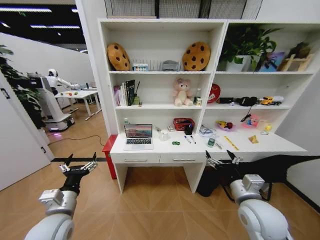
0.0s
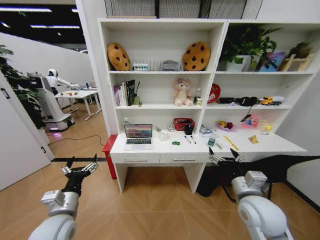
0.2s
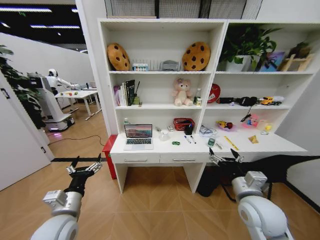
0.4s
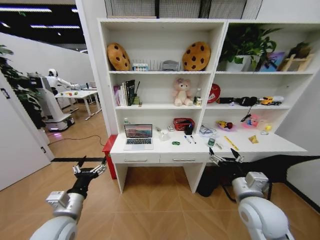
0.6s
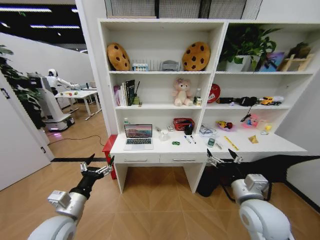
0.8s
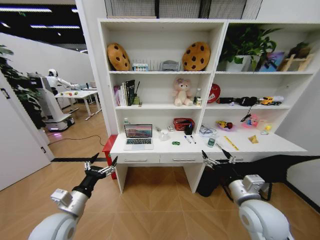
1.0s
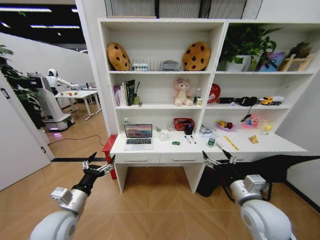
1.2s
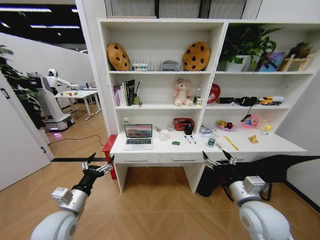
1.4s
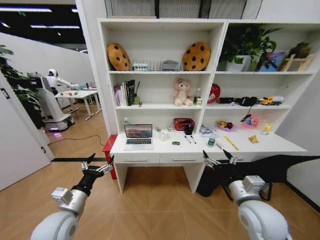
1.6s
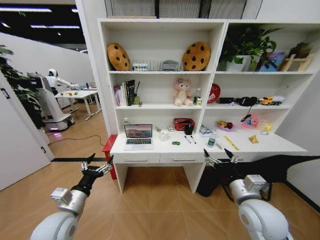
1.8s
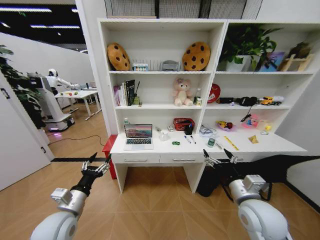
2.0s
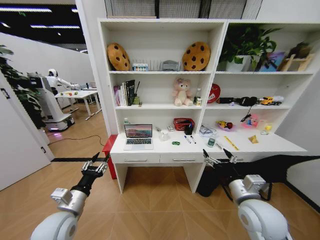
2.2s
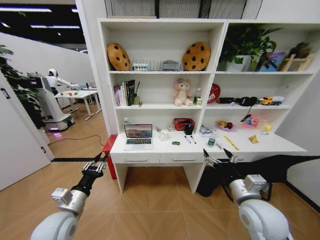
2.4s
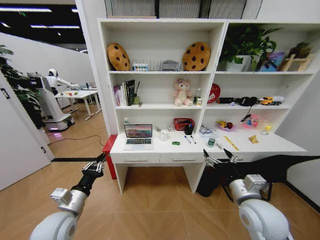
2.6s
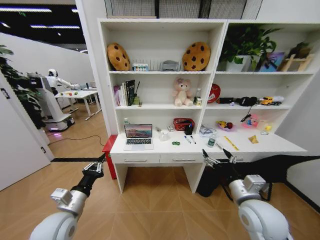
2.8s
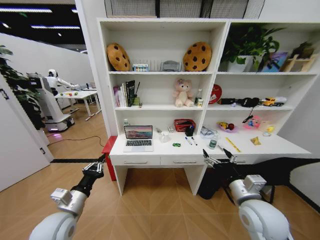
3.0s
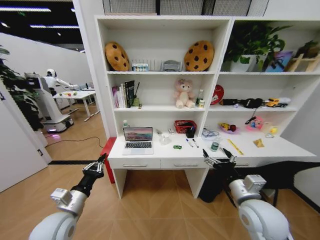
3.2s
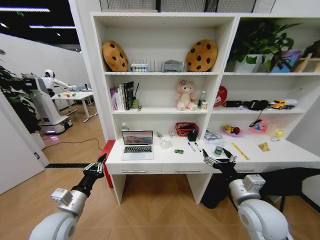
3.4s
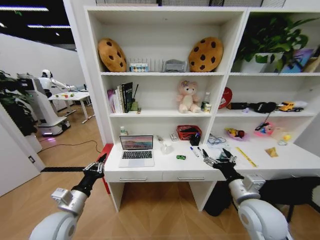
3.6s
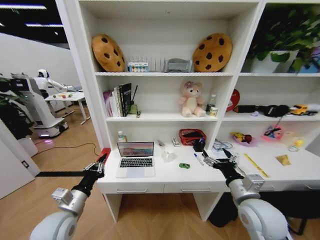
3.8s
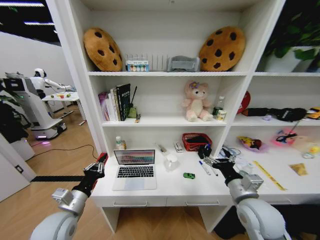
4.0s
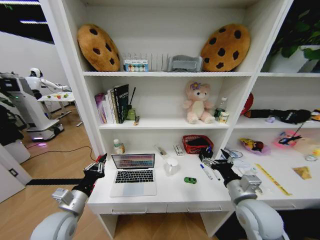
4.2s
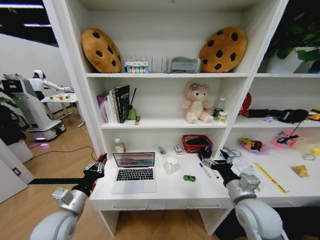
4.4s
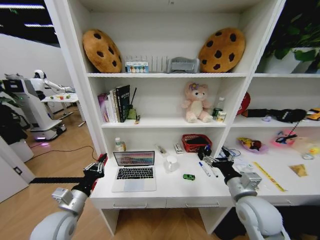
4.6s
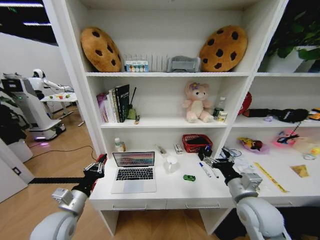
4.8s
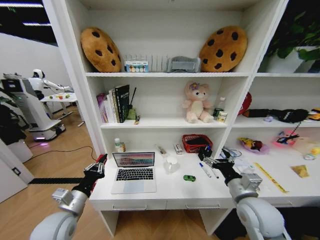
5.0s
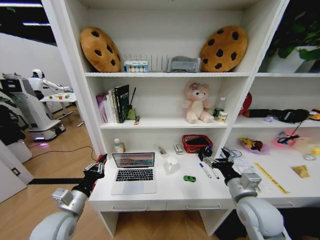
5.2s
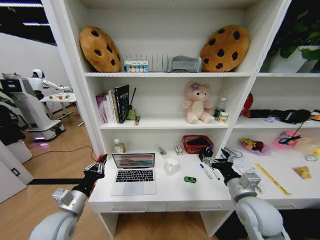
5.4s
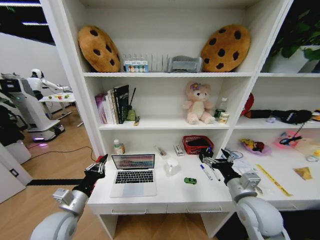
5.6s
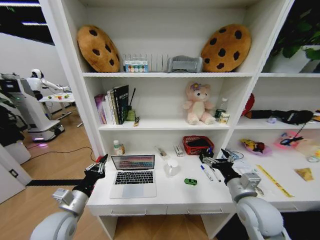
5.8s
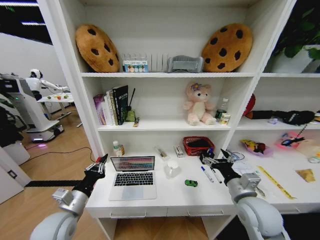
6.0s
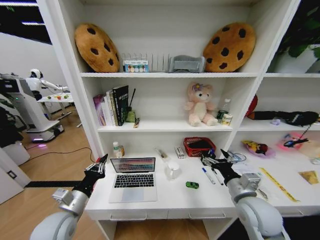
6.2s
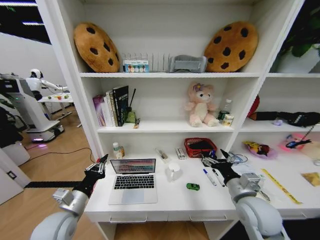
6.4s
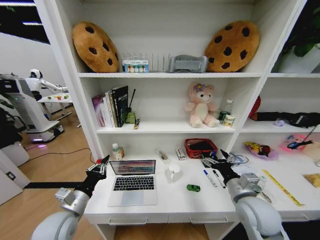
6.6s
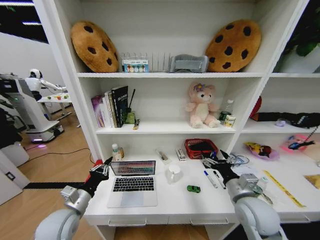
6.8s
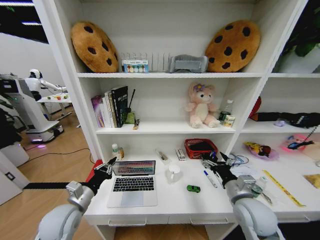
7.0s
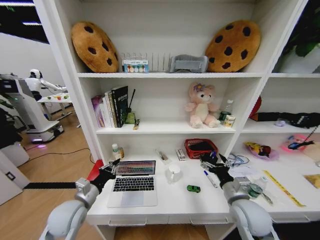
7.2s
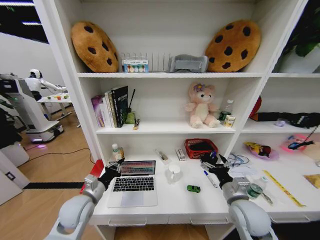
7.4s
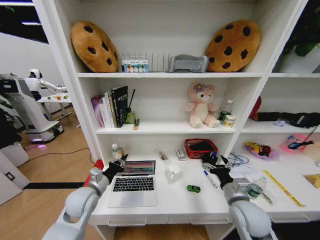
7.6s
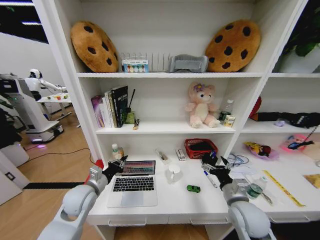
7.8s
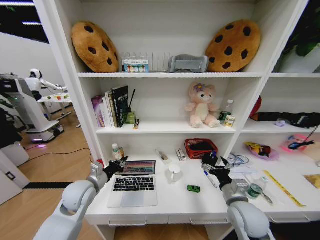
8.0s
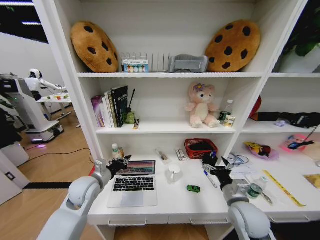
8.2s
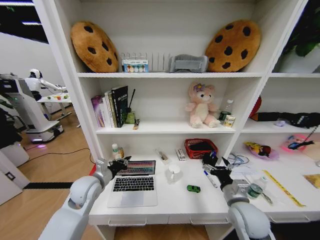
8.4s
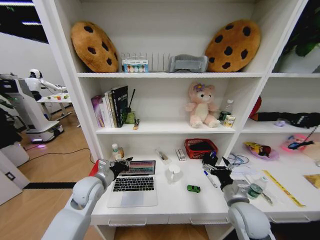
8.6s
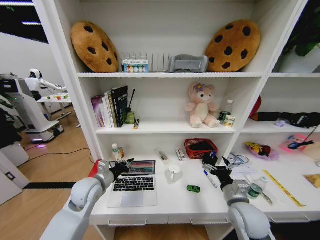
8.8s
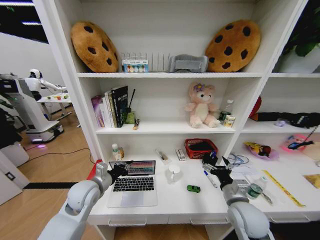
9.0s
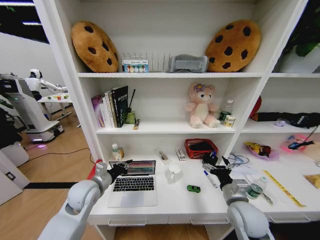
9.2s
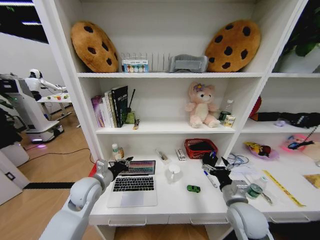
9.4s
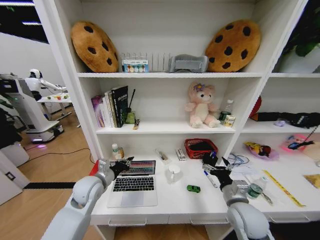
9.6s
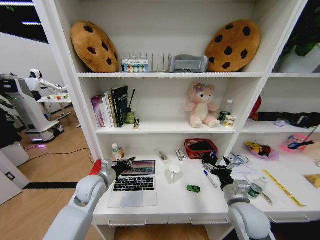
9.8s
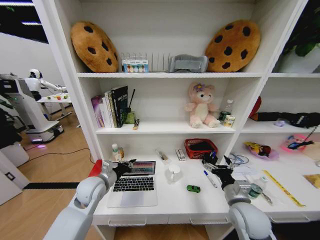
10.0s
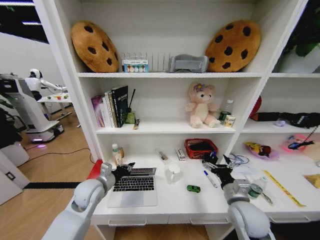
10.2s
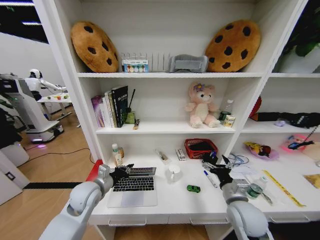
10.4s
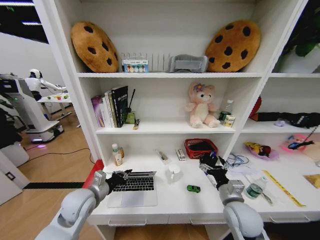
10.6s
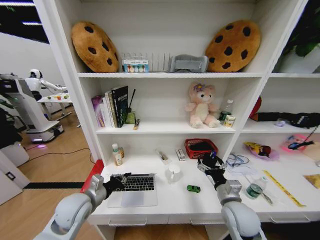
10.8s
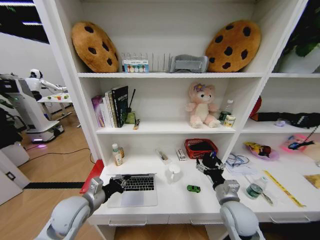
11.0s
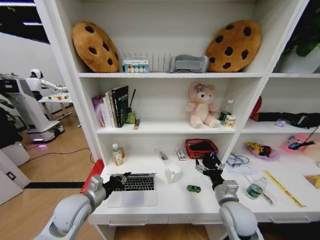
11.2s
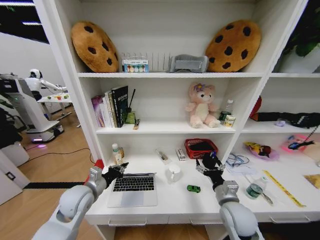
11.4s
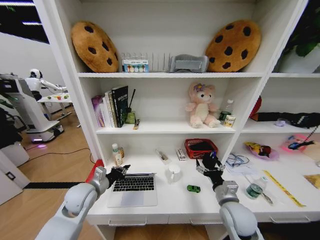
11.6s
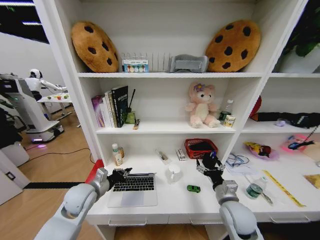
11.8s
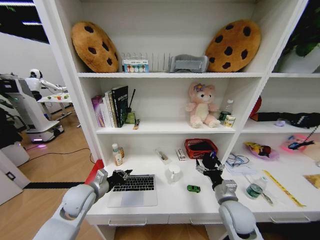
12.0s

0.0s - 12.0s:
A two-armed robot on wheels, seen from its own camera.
Task of the whole recording: Organize the objects on the table.
1.6s - 3.0s: The left gripper closes its fingers.
6.0s - 7.6s: The left gripper moves forward, some 10 cm.
7.6s - 10.4s: The grippers make only small movements.
10.4s - 12.0s: The grippers make only small movements.

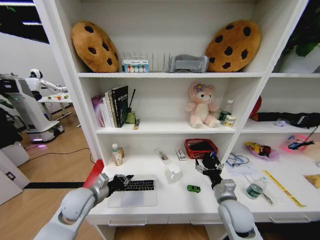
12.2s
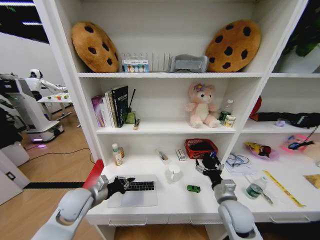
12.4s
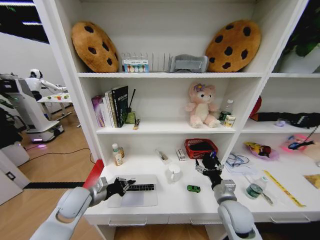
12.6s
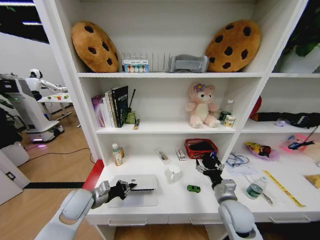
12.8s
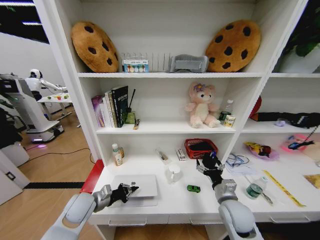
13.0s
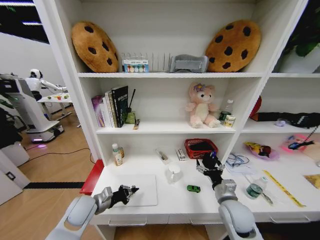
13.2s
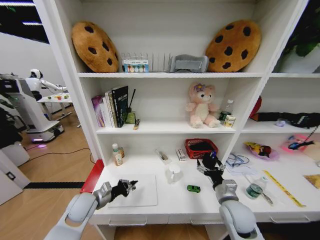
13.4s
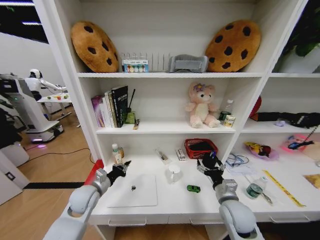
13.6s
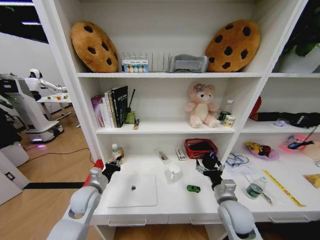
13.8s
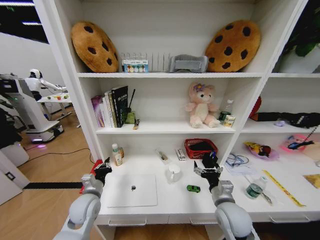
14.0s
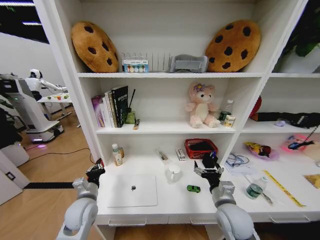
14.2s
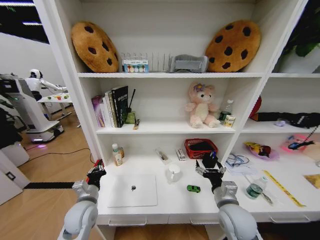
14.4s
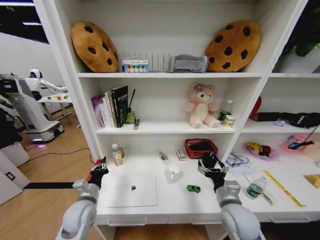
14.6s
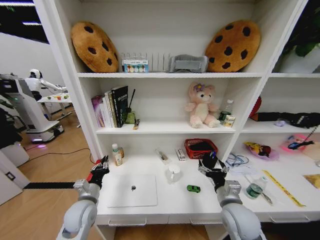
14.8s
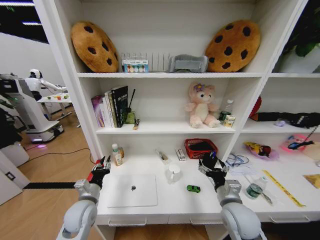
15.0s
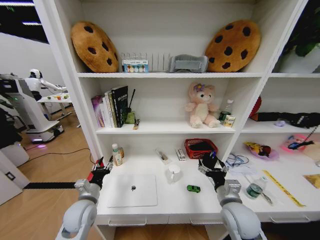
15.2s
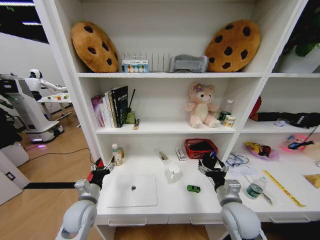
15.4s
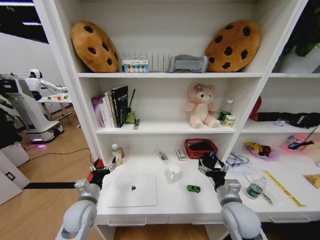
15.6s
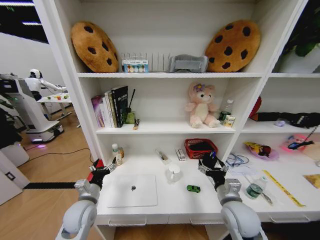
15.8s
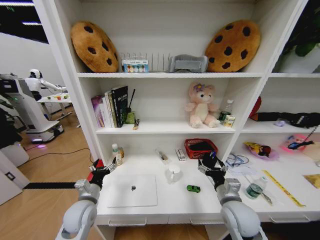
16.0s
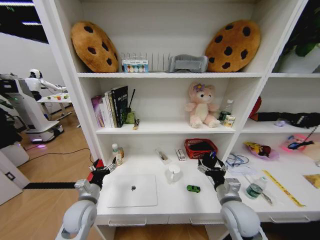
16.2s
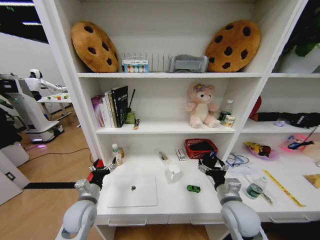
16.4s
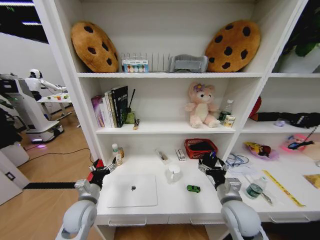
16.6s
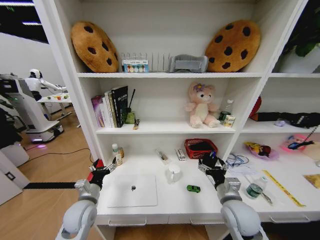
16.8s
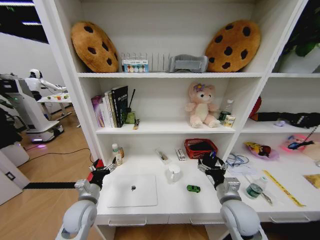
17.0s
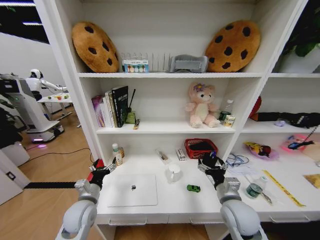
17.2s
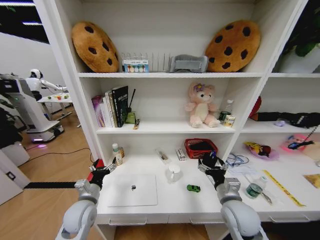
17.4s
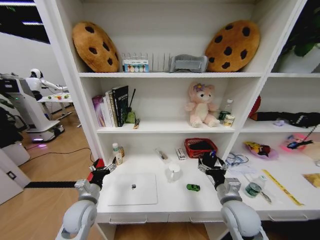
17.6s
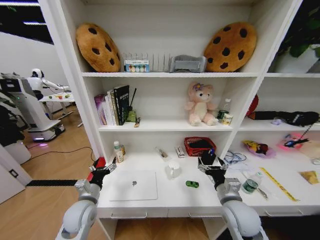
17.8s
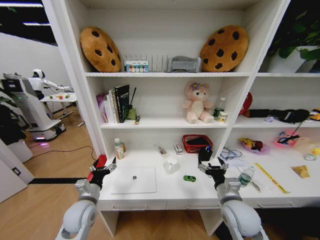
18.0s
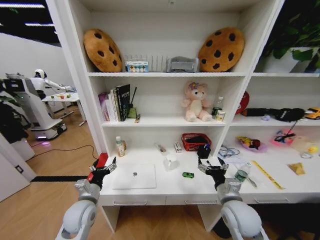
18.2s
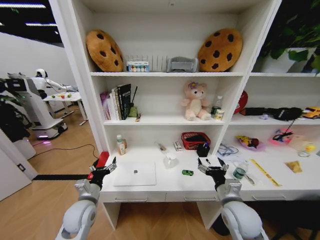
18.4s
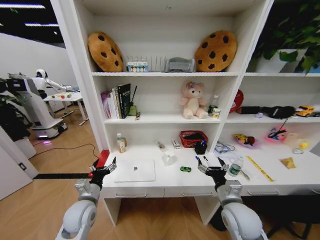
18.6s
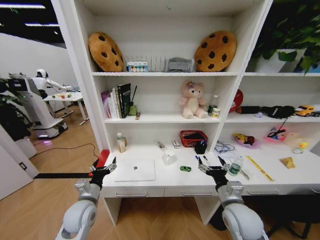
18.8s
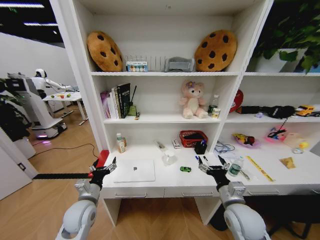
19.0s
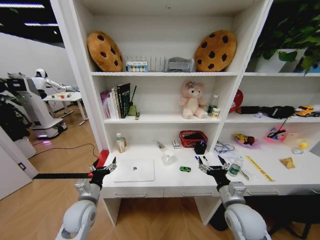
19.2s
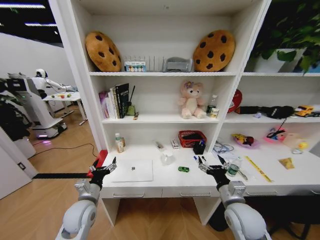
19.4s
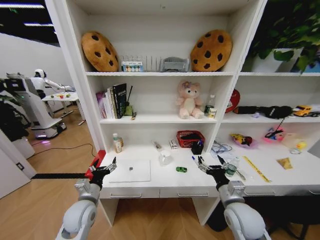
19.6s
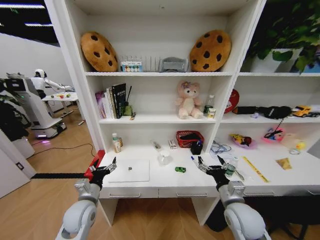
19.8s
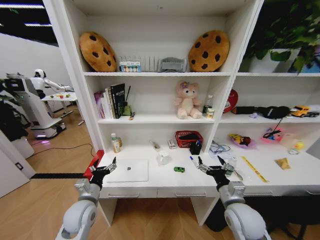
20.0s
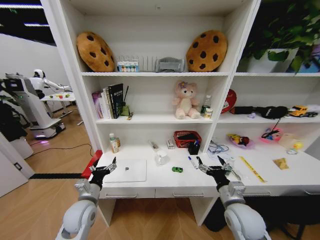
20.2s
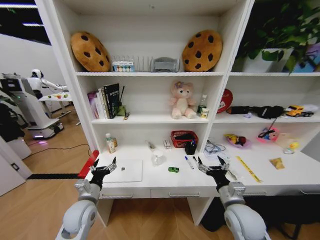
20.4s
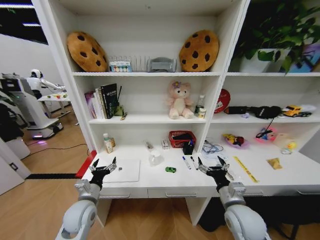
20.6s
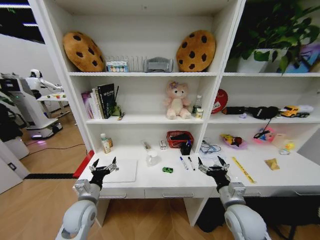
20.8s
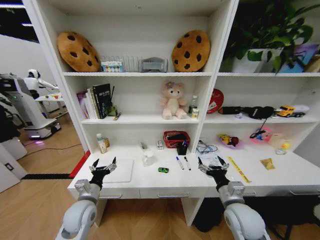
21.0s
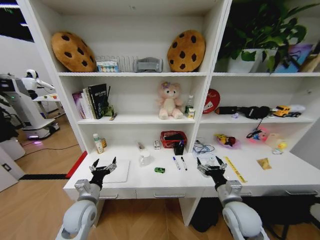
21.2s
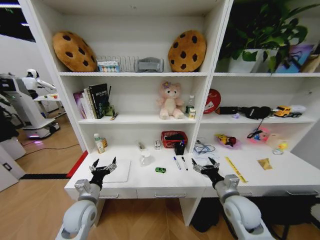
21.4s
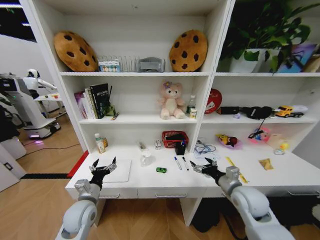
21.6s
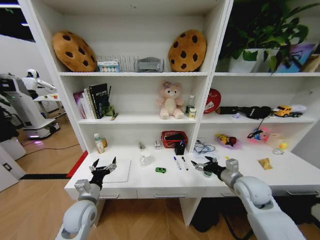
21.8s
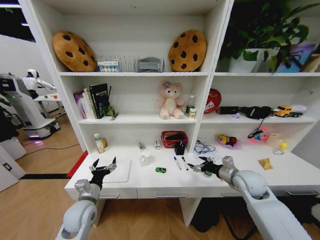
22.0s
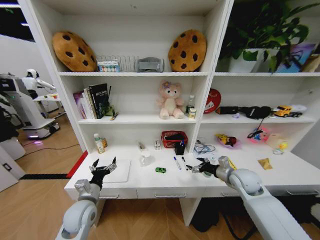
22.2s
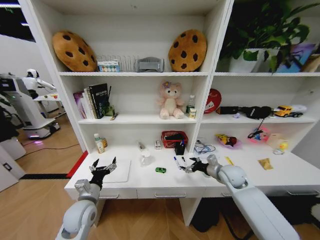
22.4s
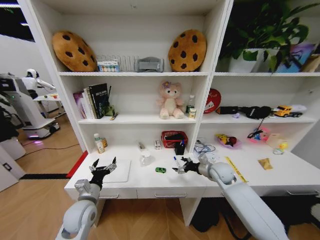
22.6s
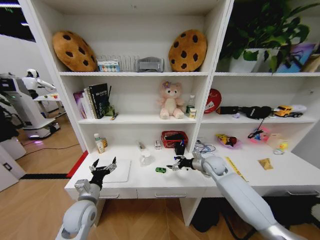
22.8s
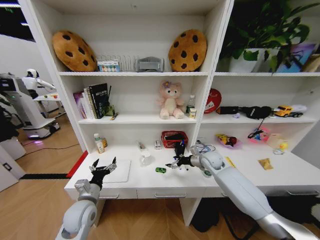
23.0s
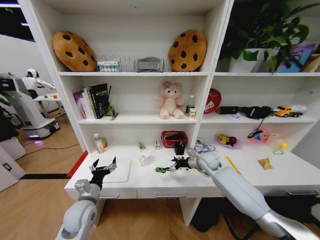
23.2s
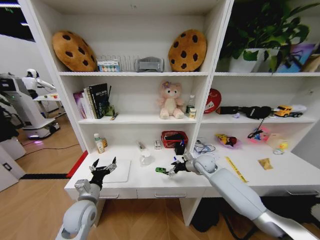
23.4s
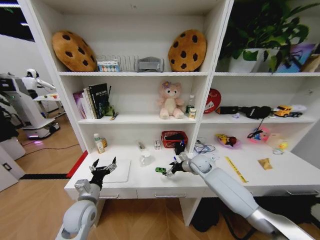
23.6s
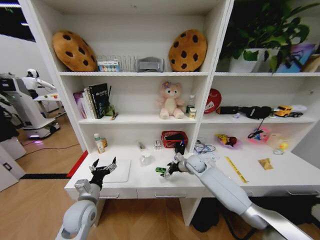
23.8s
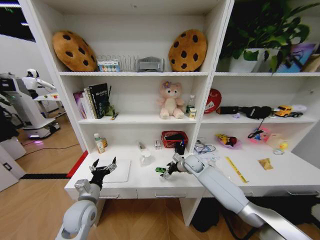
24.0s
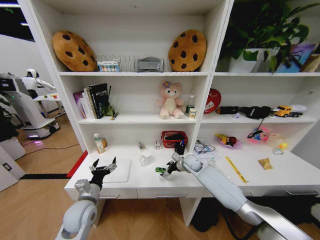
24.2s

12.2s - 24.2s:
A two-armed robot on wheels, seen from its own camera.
Task of the whole recording: Organize the objects on the table.
13.8s - 15.2s: The left gripper opens up.
21.2s - 22.6s: The right gripper shifts approximately 20 cm forward.
22.6s - 24.2s: The right gripper heads to the left and forward, covering approximately 15 cm.
